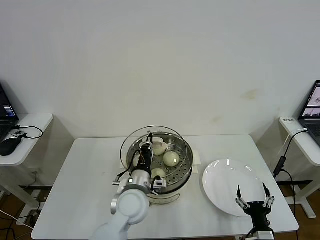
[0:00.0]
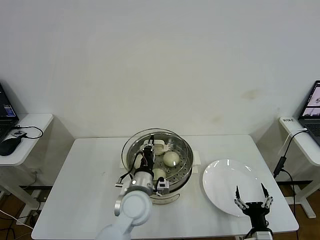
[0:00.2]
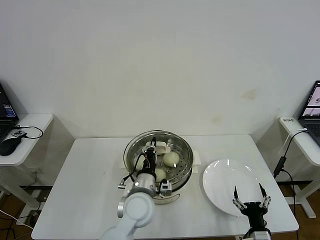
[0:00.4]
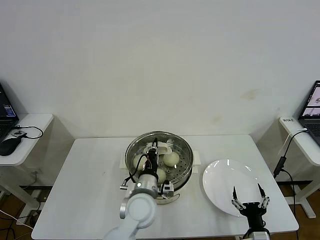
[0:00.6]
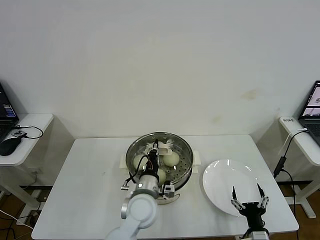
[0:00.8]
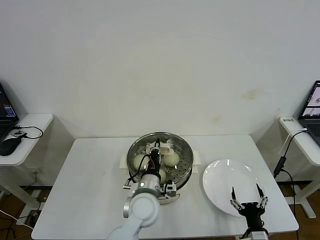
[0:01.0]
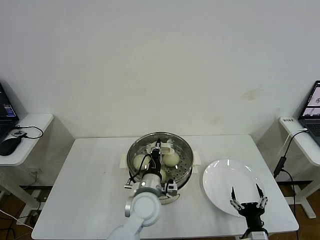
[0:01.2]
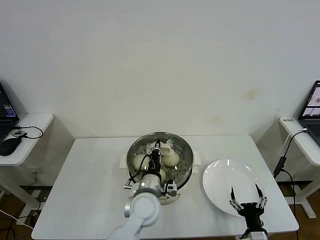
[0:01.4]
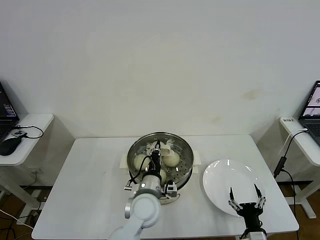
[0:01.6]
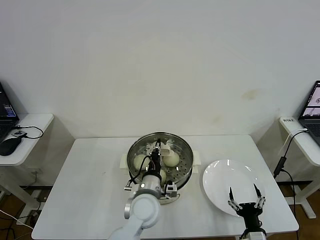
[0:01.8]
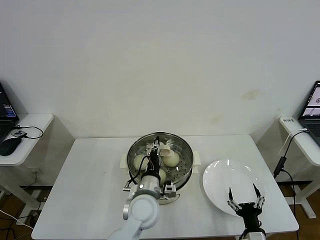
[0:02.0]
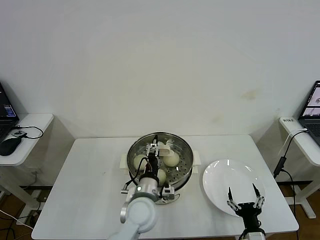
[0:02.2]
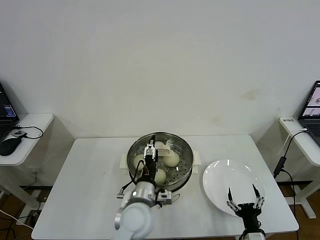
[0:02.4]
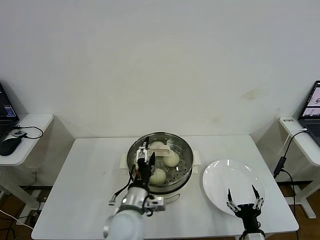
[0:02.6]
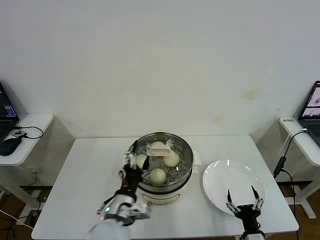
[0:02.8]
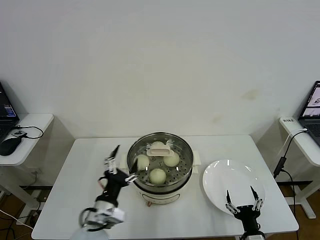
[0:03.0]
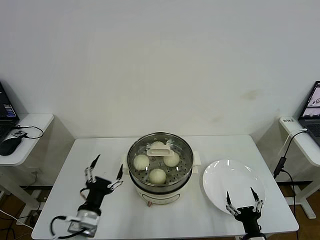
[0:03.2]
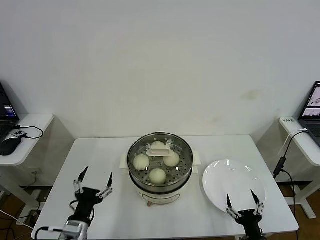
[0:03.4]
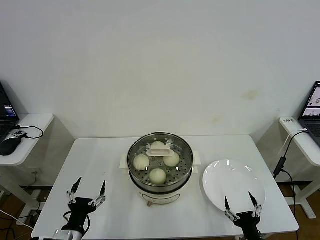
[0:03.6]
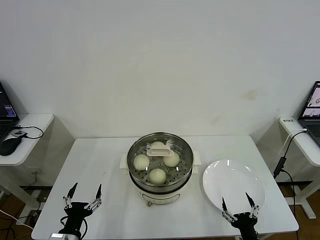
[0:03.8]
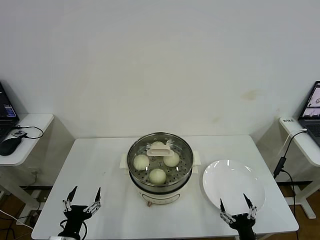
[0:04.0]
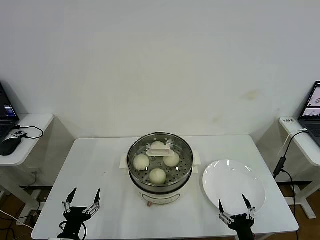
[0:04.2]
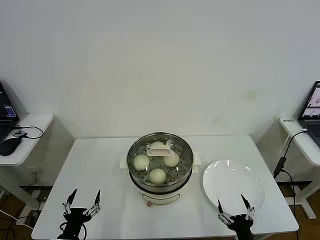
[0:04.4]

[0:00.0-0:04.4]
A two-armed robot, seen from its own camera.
Step, 0:00.0 to 0:02.0: Place the pot lid on the steamer with left gripper.
0:00.0 to 0:01.4: The grippers make only small movements.
0:01.4 to 0:03.0: The left gripper travels to the left and backward by about 15 cm, and opens.
0:03.0 to 0:04.4: The left gripper travels to the left, downward and backward by some 20 cm.

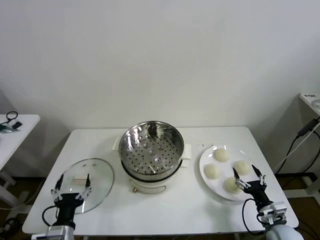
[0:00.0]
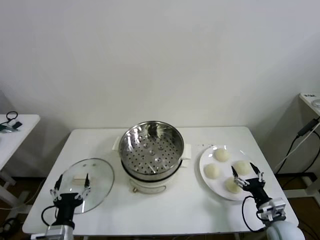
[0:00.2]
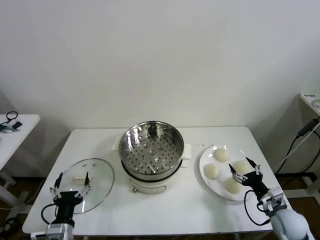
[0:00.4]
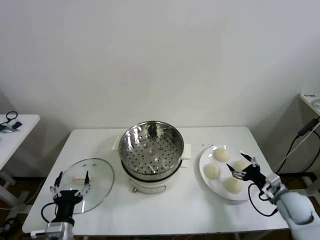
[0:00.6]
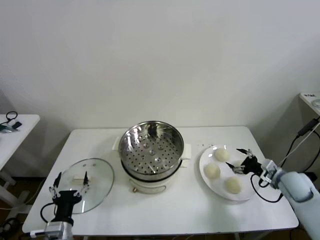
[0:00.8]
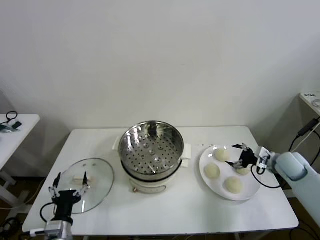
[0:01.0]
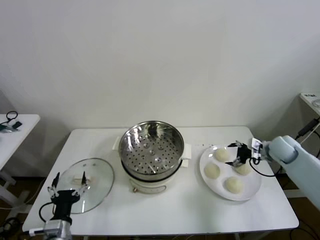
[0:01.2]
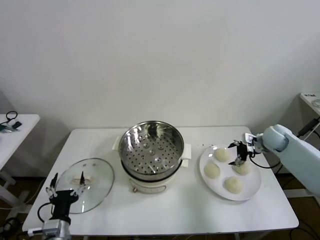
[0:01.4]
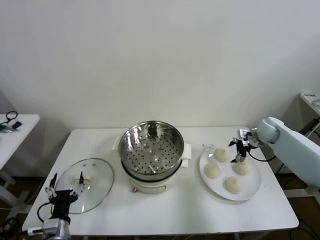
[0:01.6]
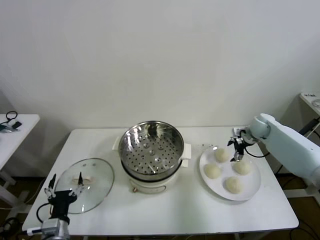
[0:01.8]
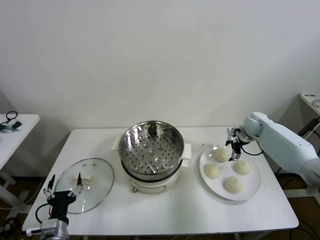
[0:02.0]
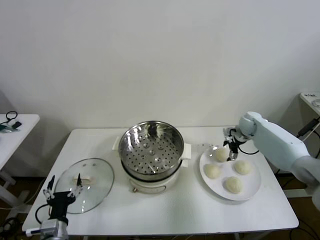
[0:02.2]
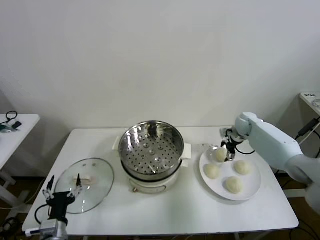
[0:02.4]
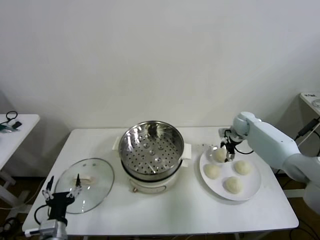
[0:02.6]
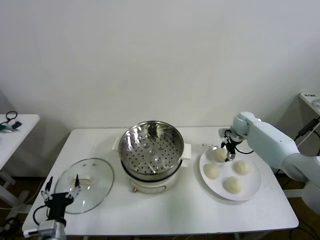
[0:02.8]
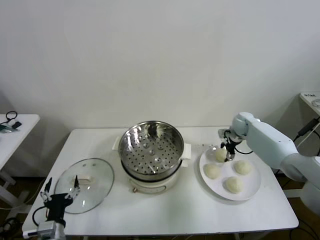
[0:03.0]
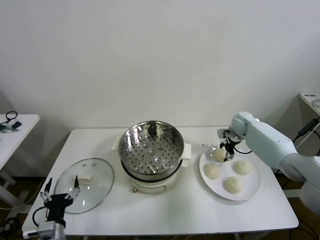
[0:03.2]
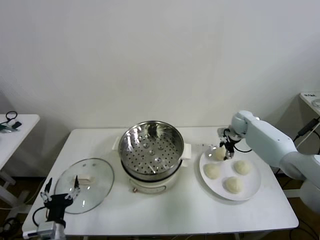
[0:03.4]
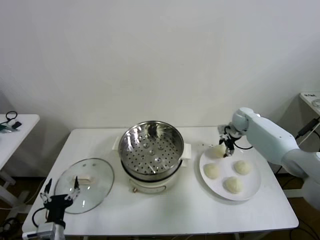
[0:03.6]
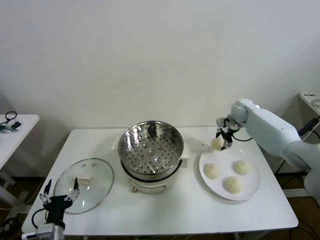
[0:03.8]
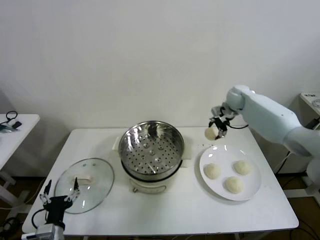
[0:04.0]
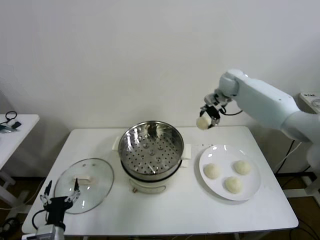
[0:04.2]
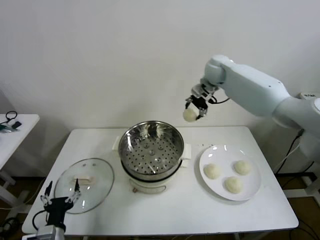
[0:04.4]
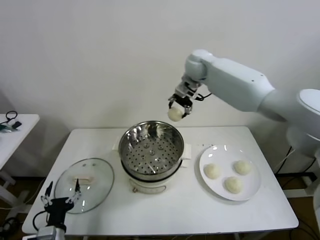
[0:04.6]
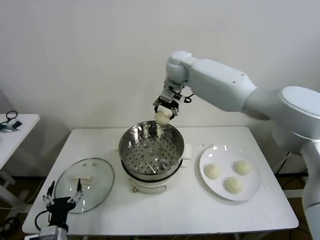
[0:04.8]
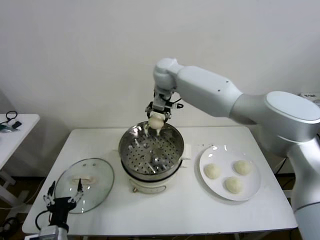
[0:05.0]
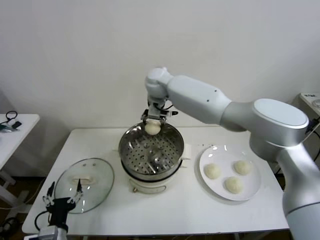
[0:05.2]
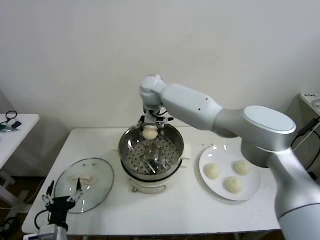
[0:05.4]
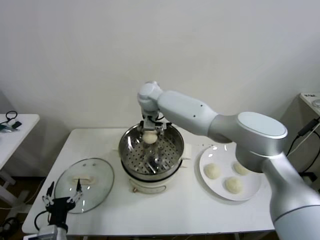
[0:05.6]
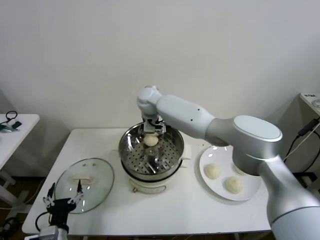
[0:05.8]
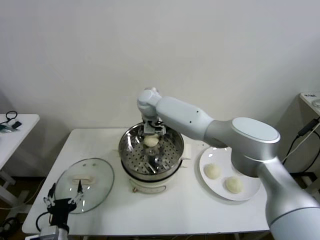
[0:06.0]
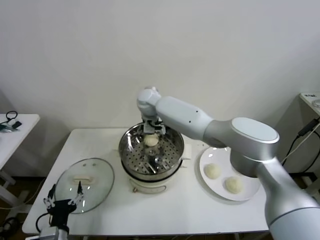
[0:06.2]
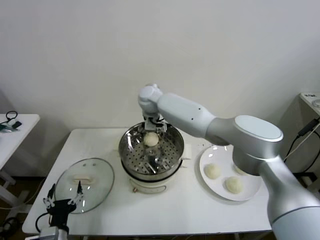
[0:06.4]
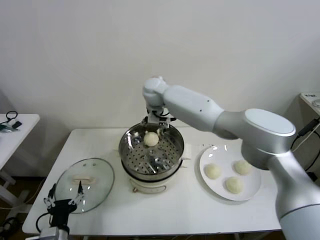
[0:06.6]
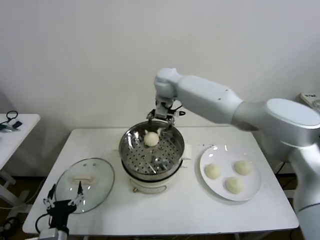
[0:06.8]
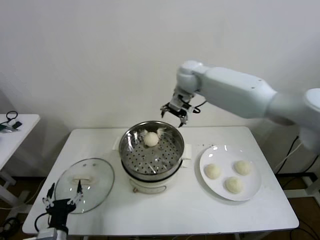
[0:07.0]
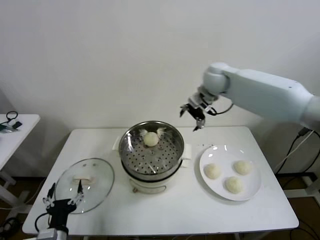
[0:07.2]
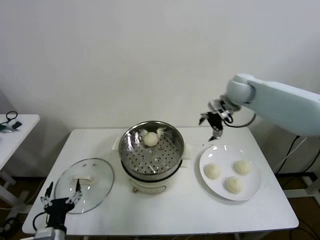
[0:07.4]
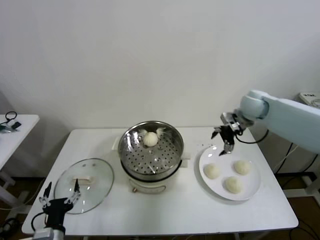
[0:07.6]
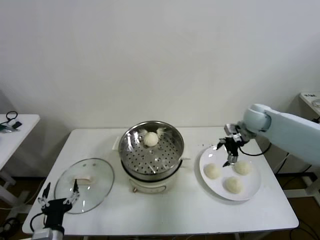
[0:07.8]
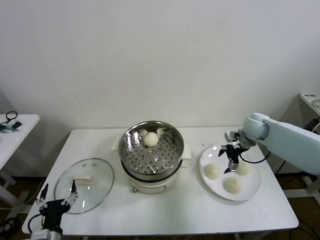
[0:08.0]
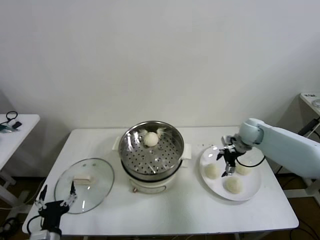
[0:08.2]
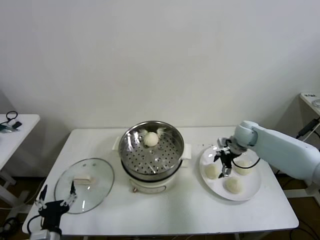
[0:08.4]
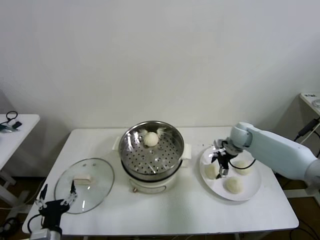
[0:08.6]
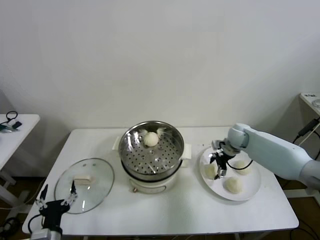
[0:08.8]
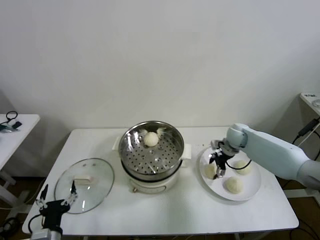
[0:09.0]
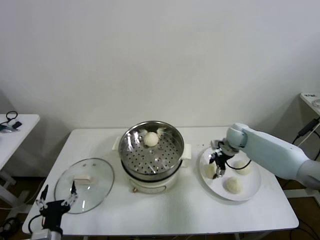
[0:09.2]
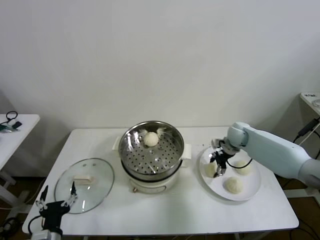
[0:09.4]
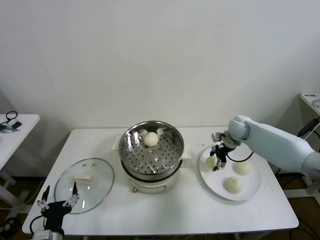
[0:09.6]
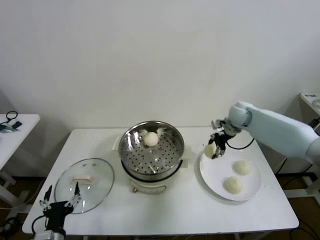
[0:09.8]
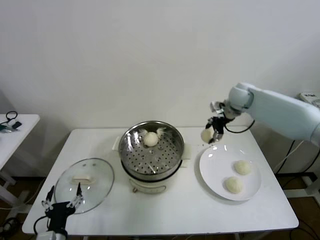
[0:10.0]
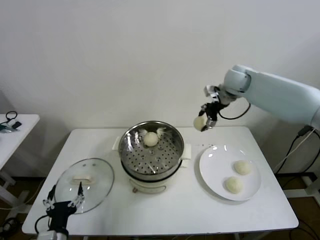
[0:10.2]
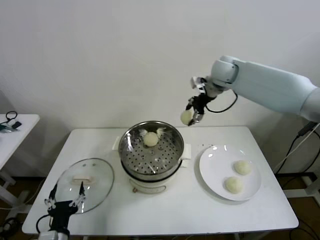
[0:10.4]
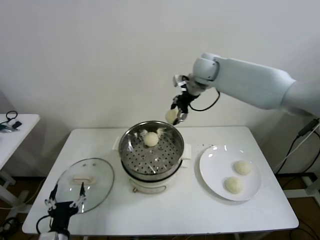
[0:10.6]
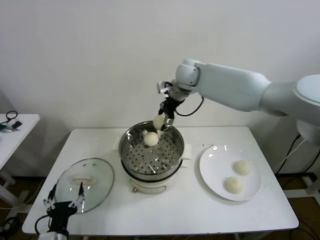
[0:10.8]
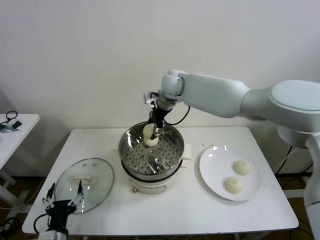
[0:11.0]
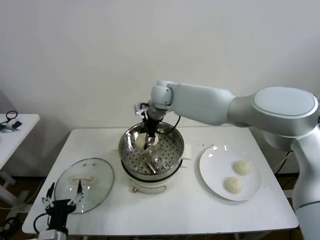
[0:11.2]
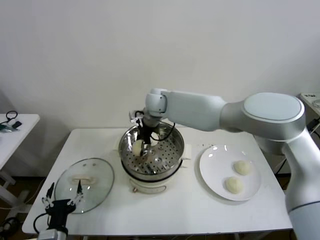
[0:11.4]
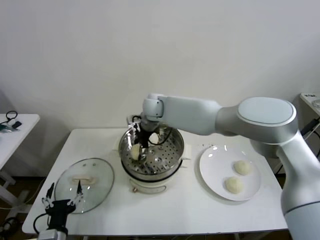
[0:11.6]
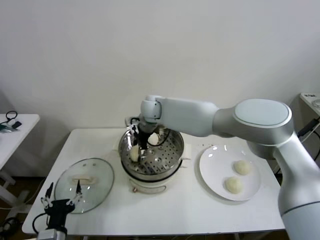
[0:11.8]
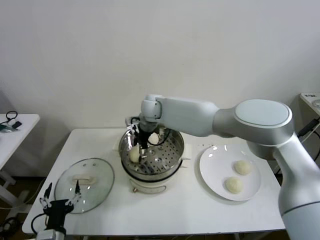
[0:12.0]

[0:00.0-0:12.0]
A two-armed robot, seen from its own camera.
Step, 0:00.0 to 0:02.8: Grasp the baozi in the plate with right gripper.
Step, 0:03.2 to 0:06.0: Place the baozi on the steamer with right gripper.
Step, 0:06.4 to 0:09.0: Grasp the baozi in the plate with right gripper.
Step, 0:09.4 to 0:11.8: Place the baozi on the steamer with right gripper.
0:01.6 to 0:03.0: The right gripper travels to the left and forward by approximately 10 cm, and closes up.
0:03.0 to 0:04.4: The right gripper is displaced upward and to the left by roughly 30 cm.
0:04.4 to 0:06.0: The right gripper moves to the left and downward, approximately 25 cm, and opens its fingers.
0:06.0 to 0:07.6: The right gripper shifts about 40 cm to the right.
0:07.6 to 0:09.0: The right gripper is displaced downward by approximately 15 cm, and closes up.
0:09.0 to 0:10.4: The right gripper goes some 30 cm upward and to the left, and closes.
0:10.4 to 0:12.0: The right gripper travels to the left and downward by some 25 cm, and opens up.

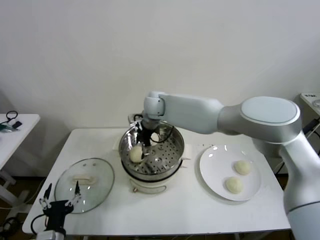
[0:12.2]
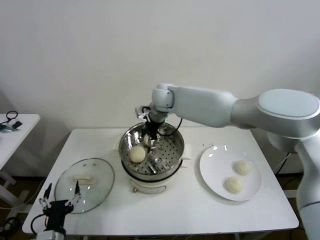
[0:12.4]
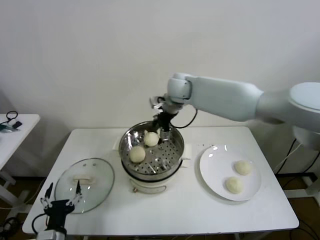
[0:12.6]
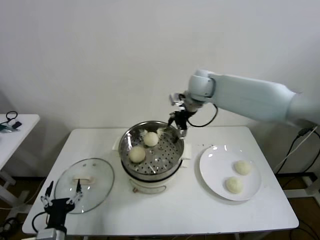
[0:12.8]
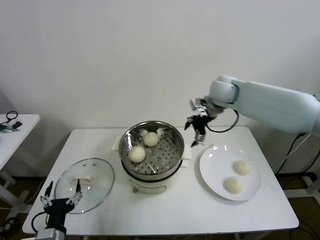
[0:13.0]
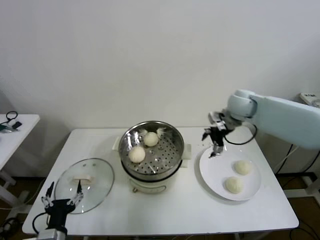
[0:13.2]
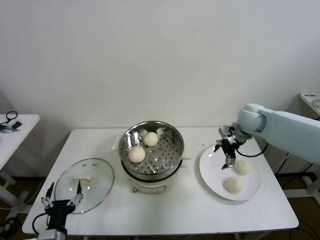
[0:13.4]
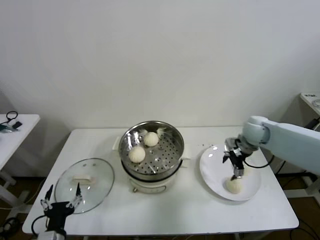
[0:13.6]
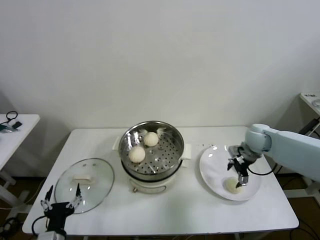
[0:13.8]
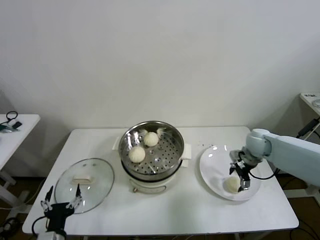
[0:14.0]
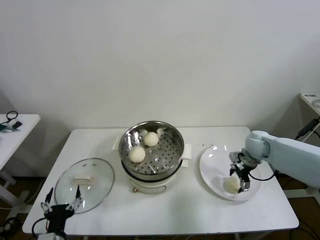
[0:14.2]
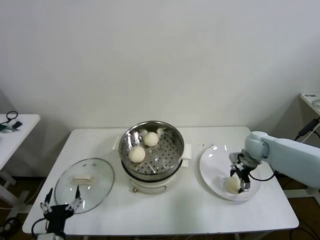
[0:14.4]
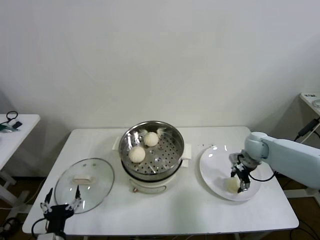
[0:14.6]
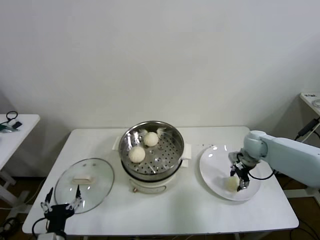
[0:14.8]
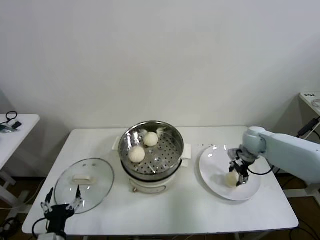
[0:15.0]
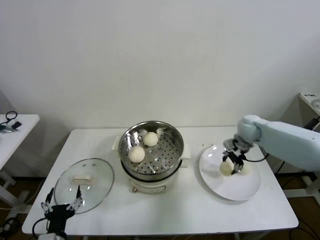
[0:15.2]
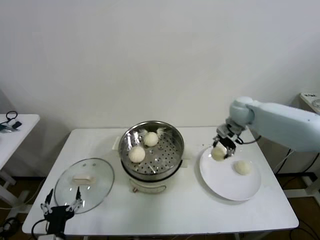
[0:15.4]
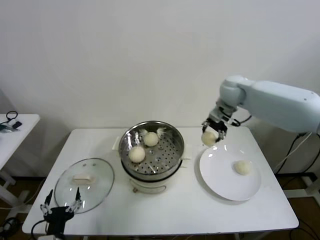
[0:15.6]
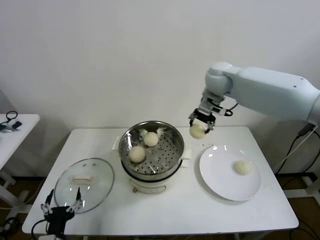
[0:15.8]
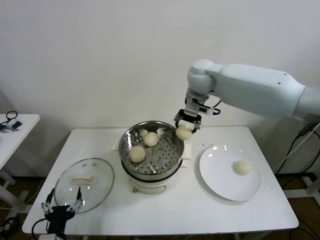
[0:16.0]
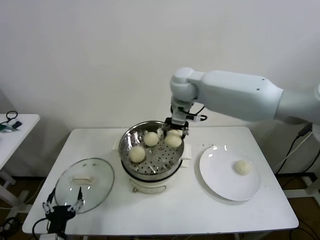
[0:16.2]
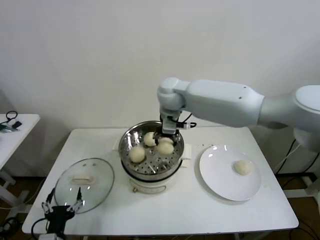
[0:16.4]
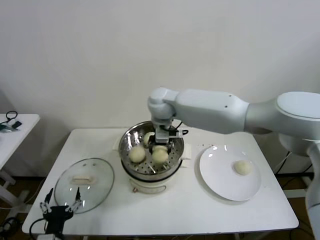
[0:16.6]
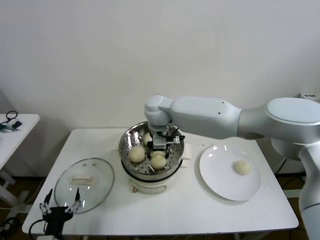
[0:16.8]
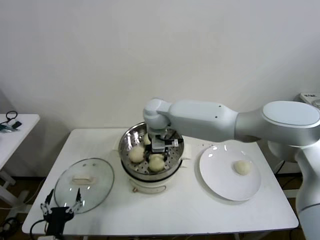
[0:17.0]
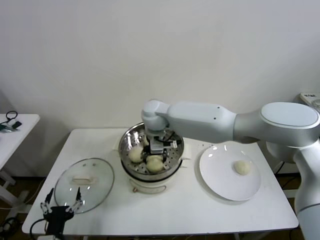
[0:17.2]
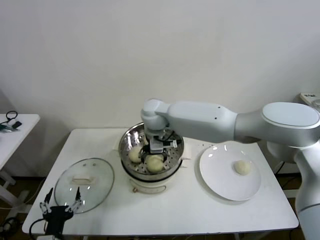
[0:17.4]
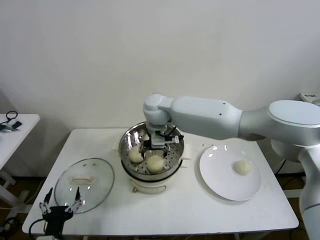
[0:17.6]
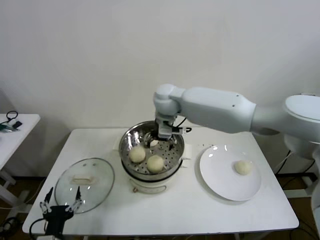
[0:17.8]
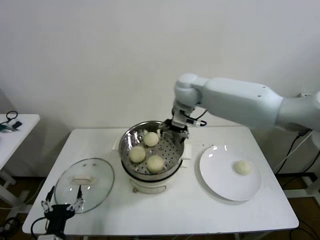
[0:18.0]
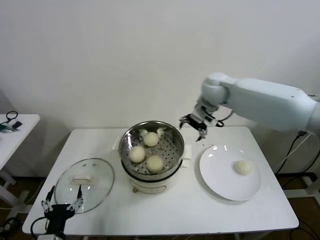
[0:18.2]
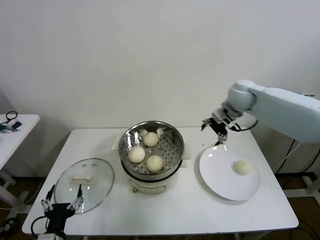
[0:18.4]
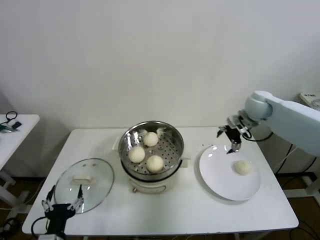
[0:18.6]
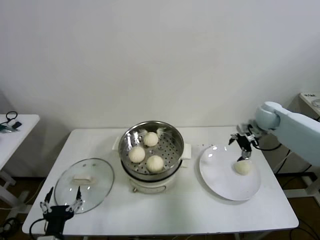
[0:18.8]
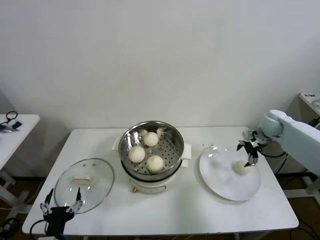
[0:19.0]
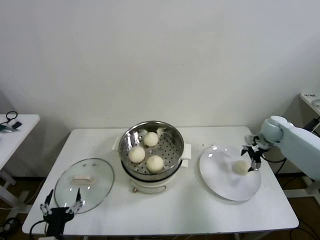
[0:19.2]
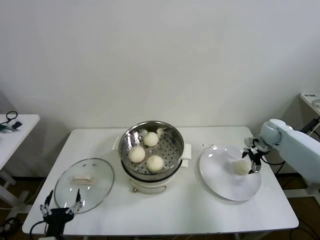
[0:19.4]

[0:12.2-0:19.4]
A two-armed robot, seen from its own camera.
Step, 0:12.2 to 0:14.6: Grasp the baozi in the plate with right gripper.
Step, 0:14.8 to 0:17.2: Place the baozi on the steamer with right gripper.
0:12.2 to 0:13.6: The right gripper goes roughly 35 cm to the right.
0:13.6 to 0:15.0: The right gripper closes up.
0:15.0 to 0:16.6: The right gripper goes about 40 cm to the left and upward.
0:16.6 to 0:18.0: The right gripper goes approximately 10 cm to the right, and opens its fingers.
0:18.0 to 0:19.4: The right gripper shifts roughly 40 cm to the right and downward.
